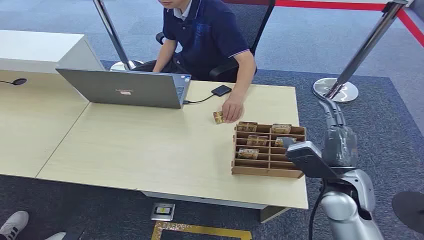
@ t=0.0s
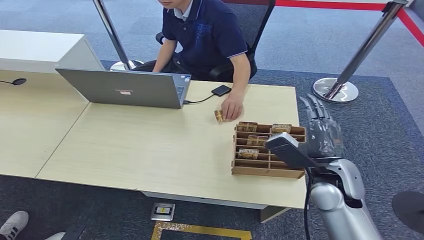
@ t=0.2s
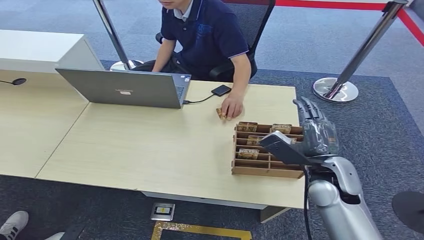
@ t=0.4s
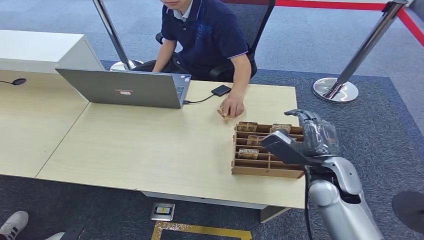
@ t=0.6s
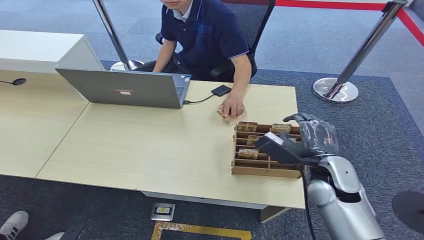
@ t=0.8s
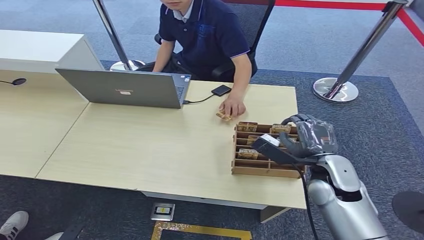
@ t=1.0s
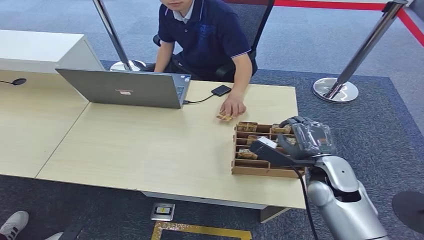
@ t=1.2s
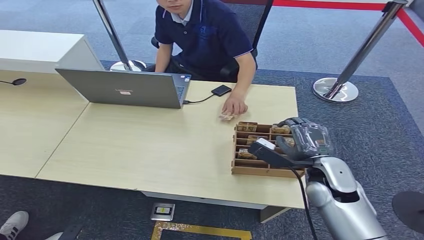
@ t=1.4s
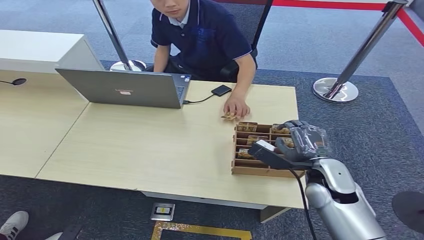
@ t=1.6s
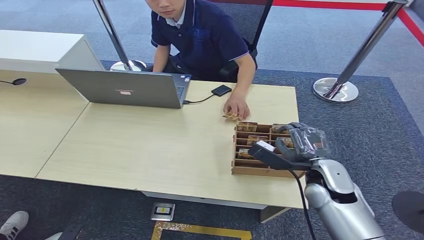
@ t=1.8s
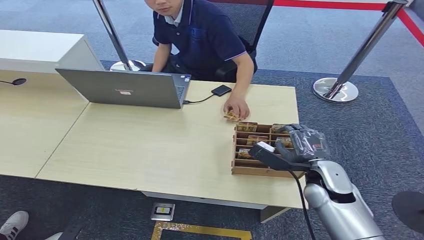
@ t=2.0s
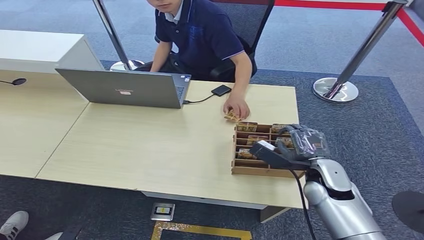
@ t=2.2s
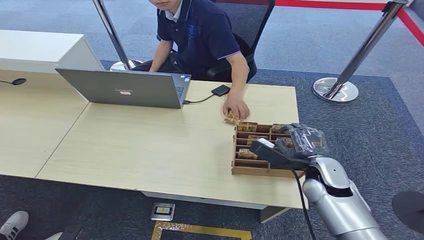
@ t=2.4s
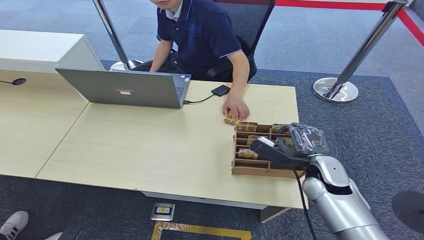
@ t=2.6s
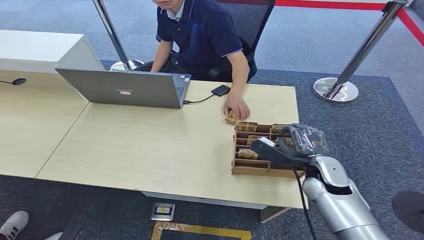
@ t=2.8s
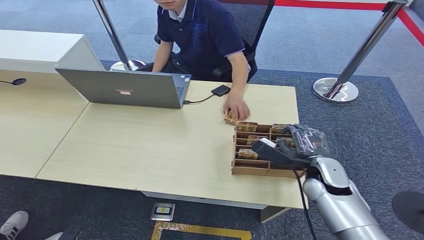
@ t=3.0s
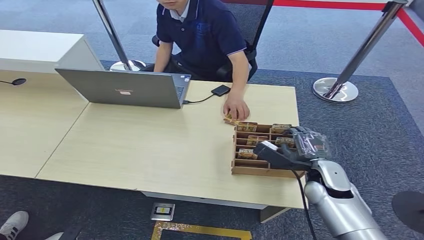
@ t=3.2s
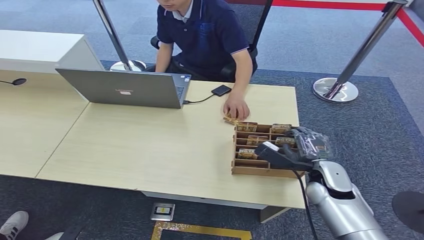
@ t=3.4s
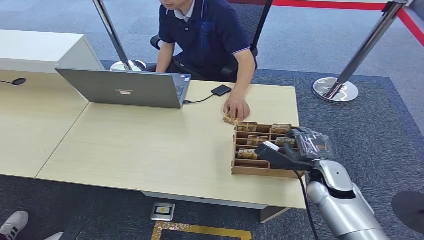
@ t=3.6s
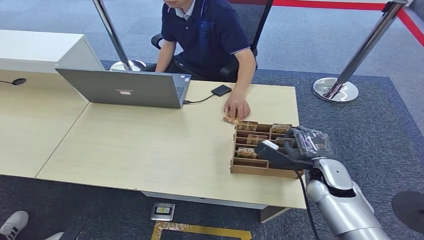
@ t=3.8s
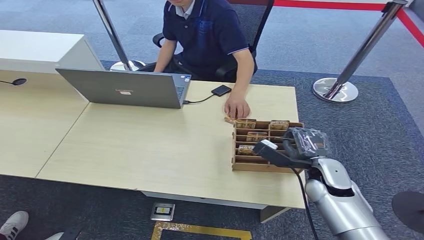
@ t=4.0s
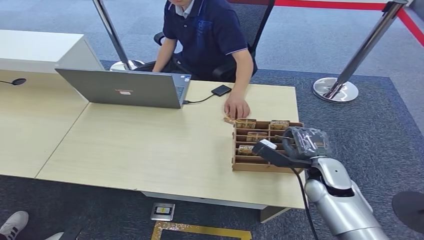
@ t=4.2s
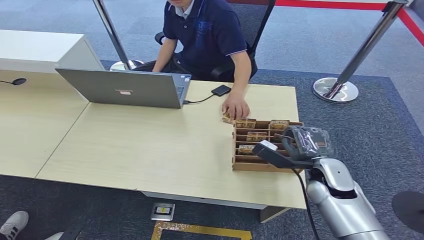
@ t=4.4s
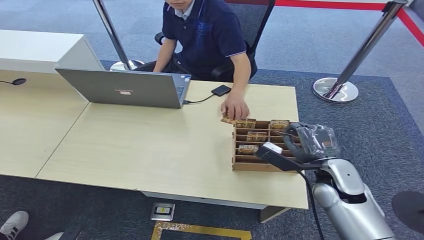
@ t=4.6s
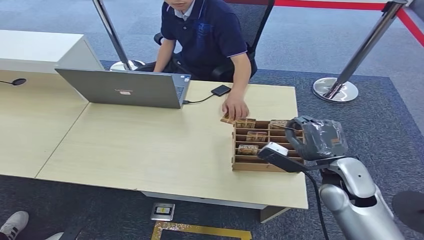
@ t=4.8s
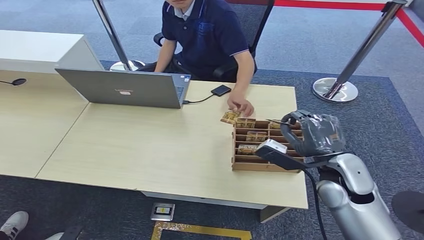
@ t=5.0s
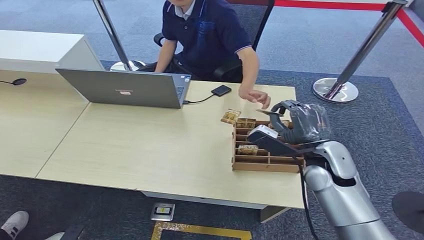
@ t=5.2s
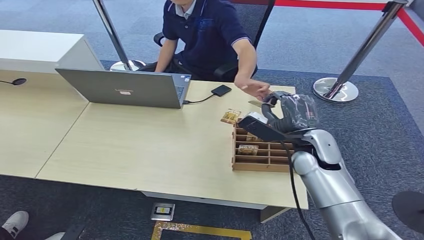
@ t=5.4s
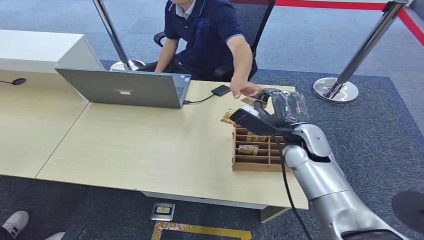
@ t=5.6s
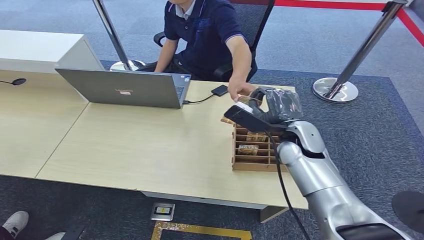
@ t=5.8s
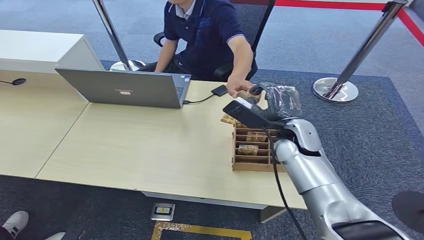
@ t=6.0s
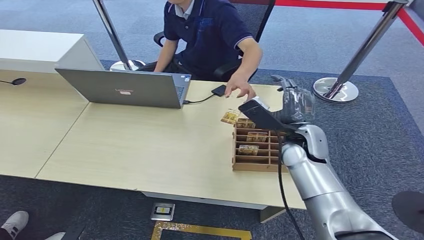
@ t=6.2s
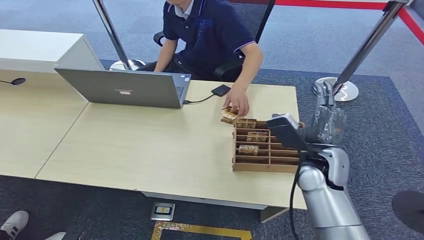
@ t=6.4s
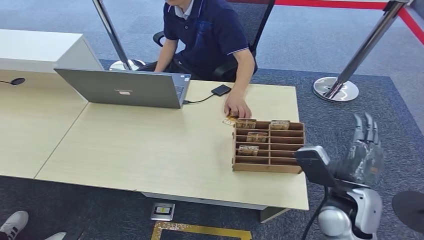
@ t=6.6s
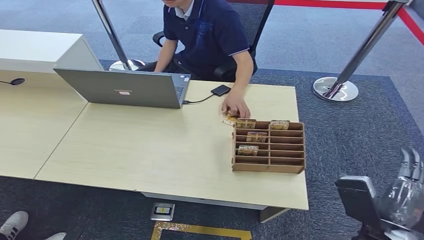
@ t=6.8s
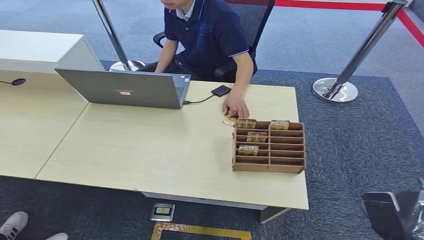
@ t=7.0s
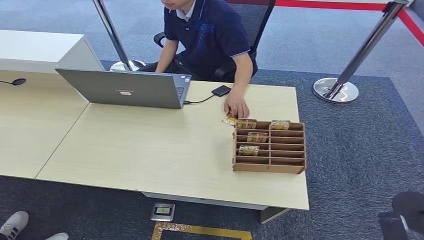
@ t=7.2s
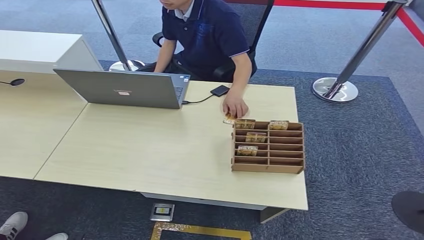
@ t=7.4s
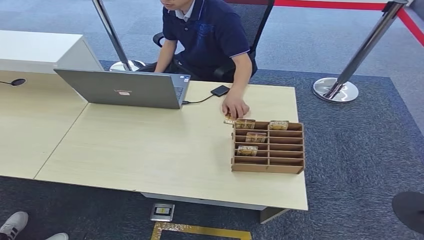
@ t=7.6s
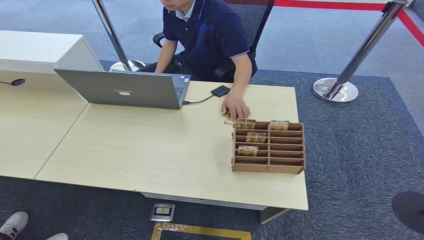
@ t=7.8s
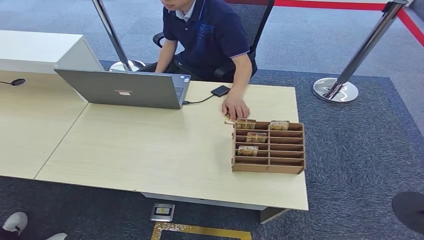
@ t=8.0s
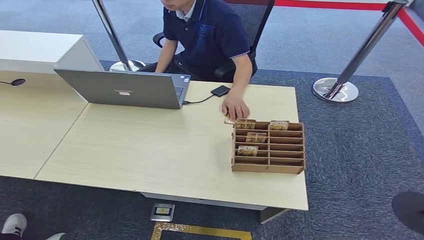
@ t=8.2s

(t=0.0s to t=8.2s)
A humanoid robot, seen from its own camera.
Step, t=0.0s - t=4.4s: Pick up the key card from the card box.
Step, t=4.6s - t=8.2s: Hand the key card to the target.
t=1.6s - t=3.2s: The hands make only small movements.
t=3.2s - t=5.0s: The right hand is displaced upward by some 10 cm.
t=5.0s - t=6.6s: The right hand heads backward, covering approximately 5 cm.
t=6.6s - t=8.2s: The right hand heads downward and backward, covering approximately 30 cm.
